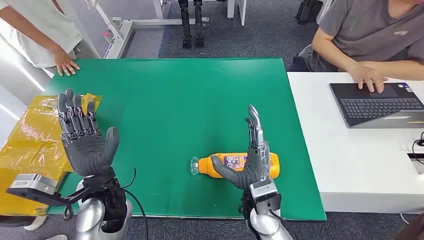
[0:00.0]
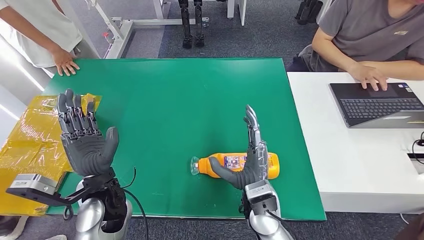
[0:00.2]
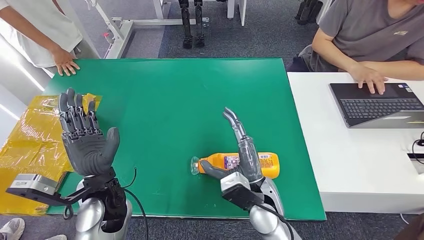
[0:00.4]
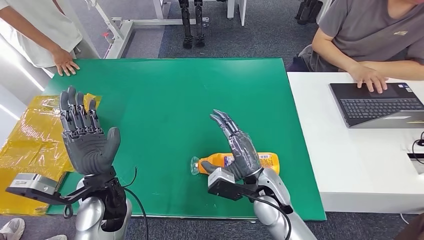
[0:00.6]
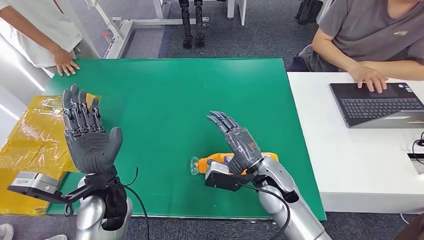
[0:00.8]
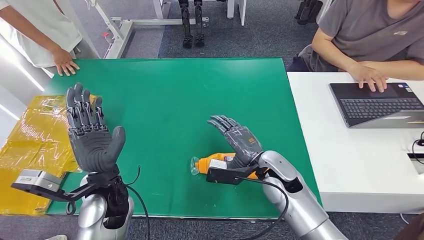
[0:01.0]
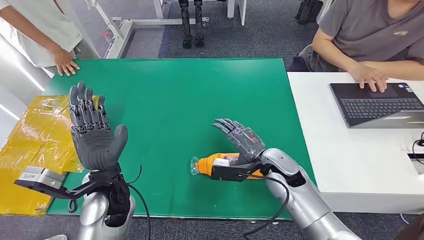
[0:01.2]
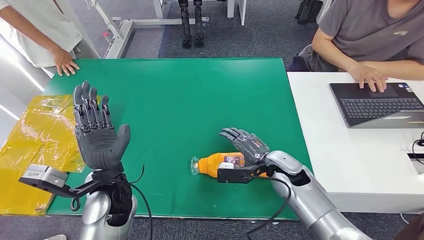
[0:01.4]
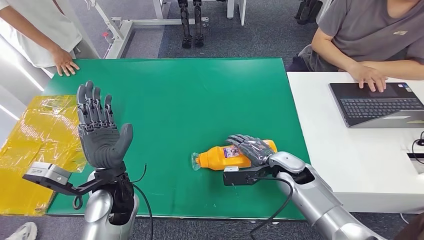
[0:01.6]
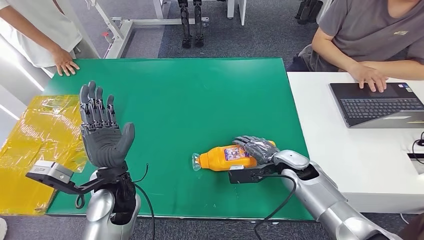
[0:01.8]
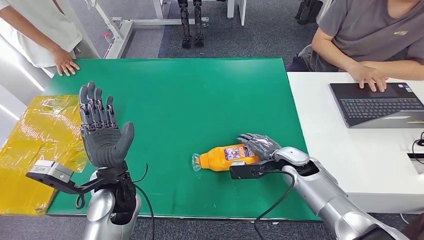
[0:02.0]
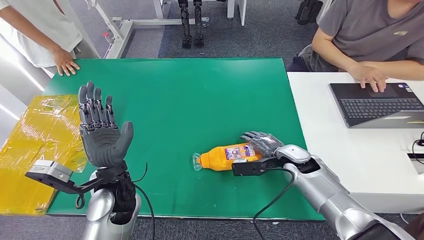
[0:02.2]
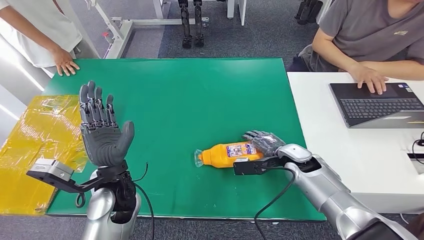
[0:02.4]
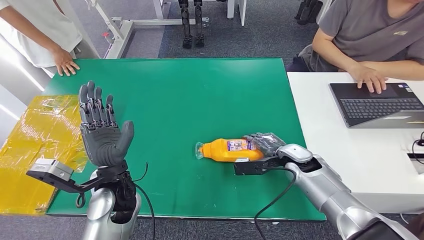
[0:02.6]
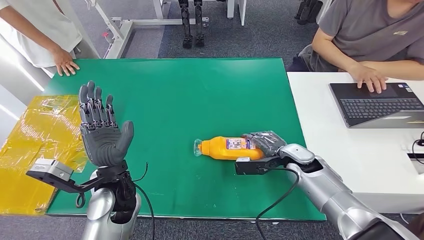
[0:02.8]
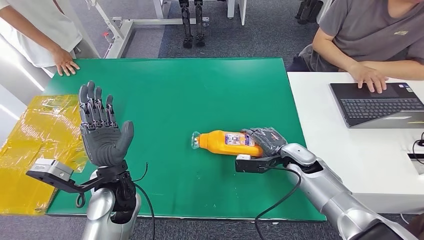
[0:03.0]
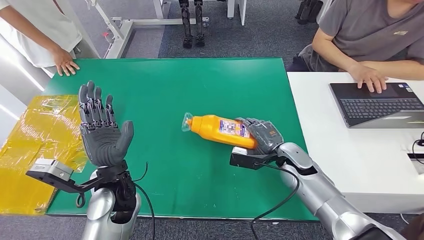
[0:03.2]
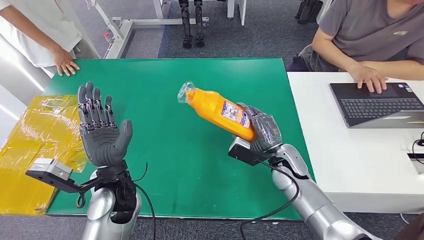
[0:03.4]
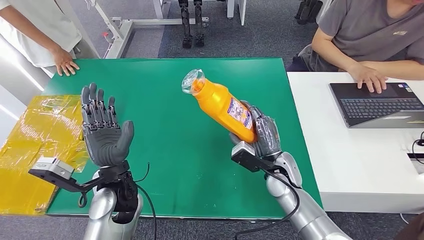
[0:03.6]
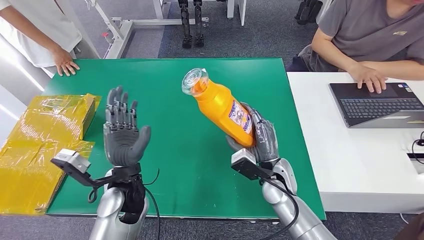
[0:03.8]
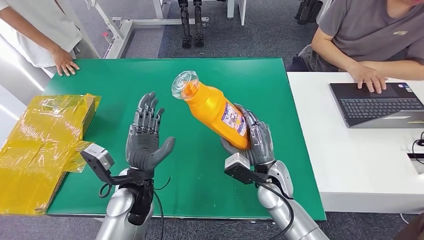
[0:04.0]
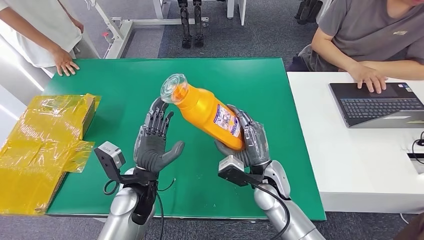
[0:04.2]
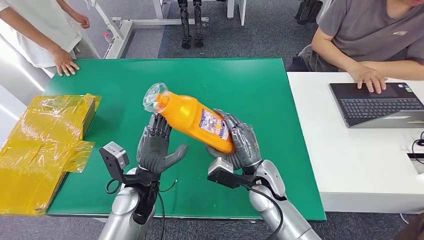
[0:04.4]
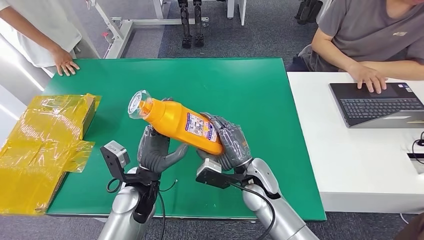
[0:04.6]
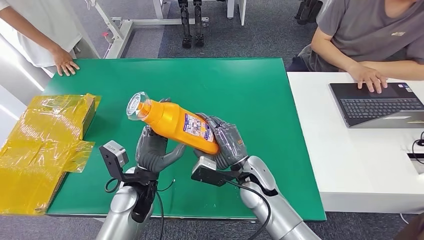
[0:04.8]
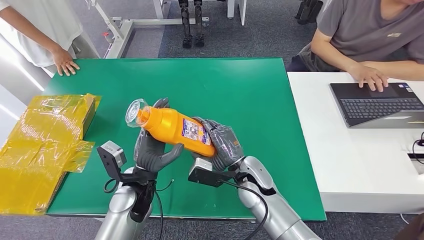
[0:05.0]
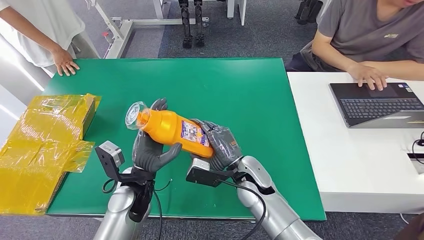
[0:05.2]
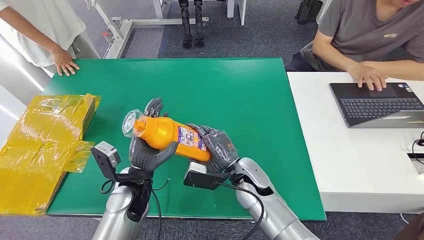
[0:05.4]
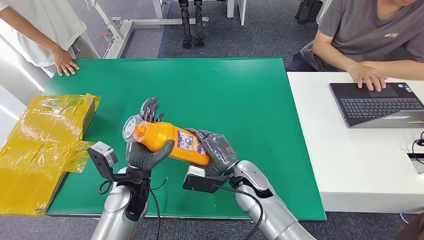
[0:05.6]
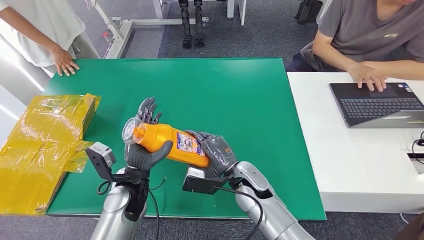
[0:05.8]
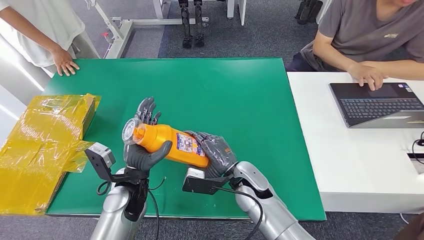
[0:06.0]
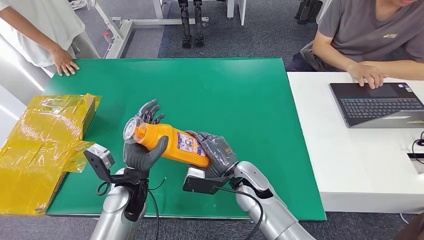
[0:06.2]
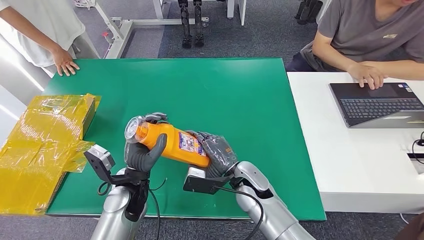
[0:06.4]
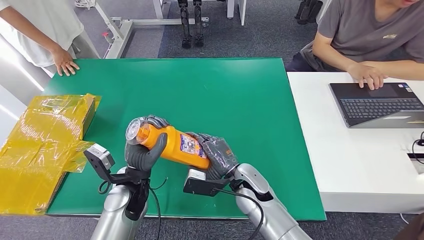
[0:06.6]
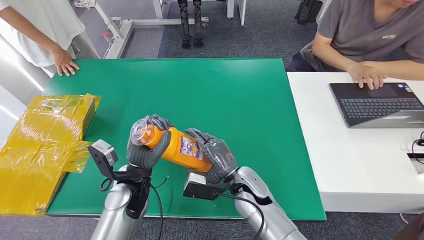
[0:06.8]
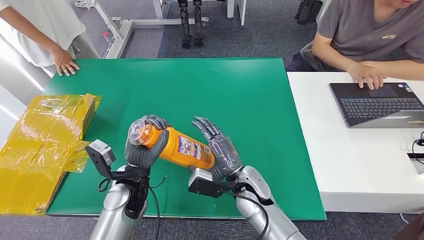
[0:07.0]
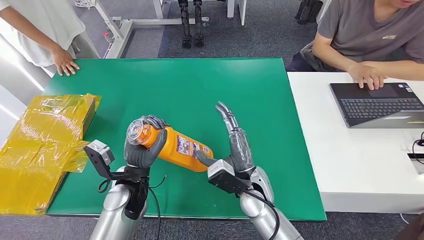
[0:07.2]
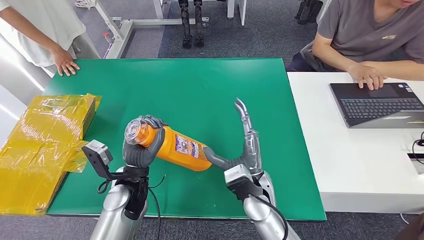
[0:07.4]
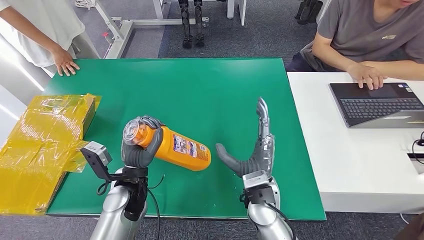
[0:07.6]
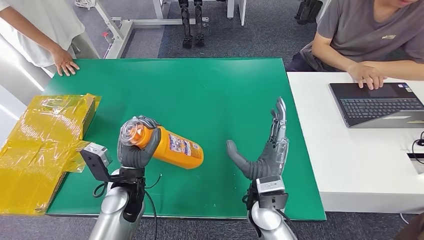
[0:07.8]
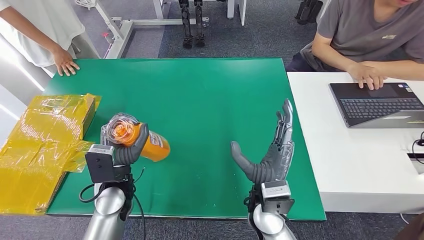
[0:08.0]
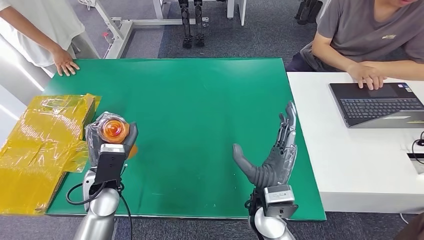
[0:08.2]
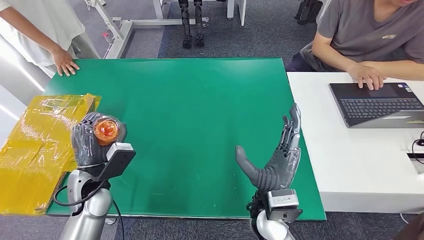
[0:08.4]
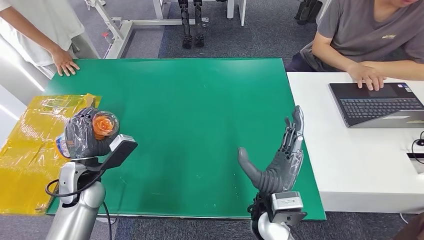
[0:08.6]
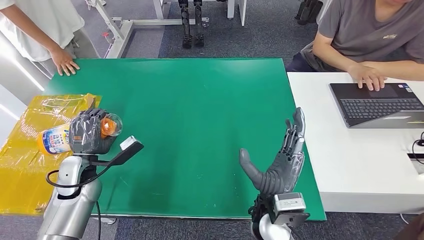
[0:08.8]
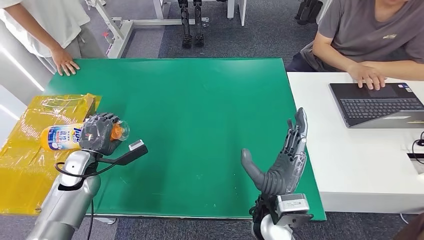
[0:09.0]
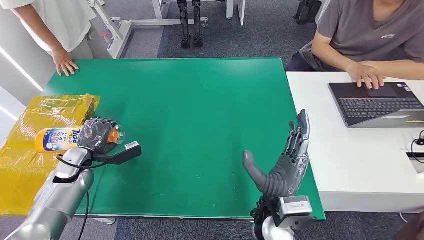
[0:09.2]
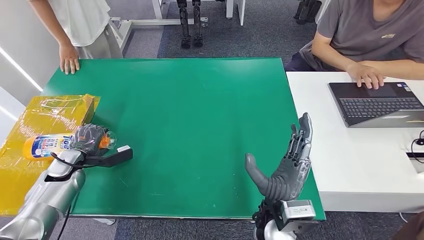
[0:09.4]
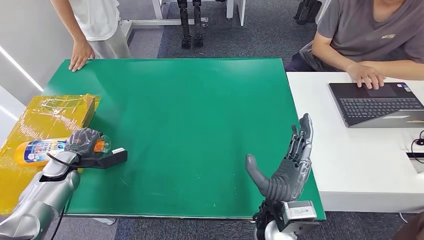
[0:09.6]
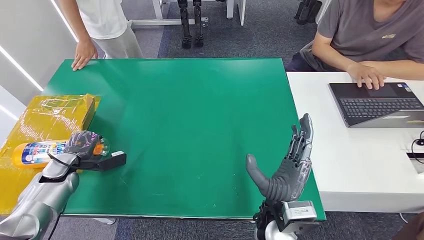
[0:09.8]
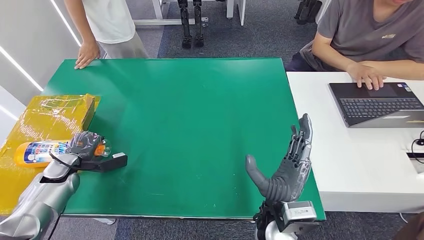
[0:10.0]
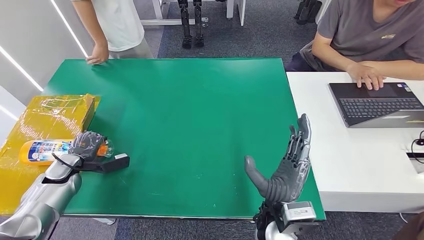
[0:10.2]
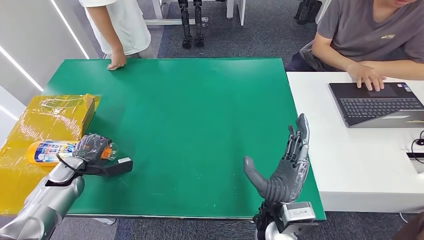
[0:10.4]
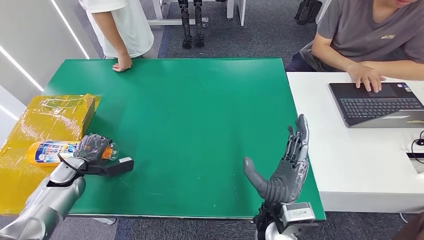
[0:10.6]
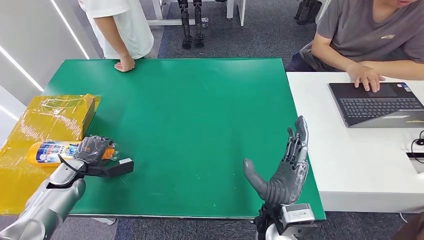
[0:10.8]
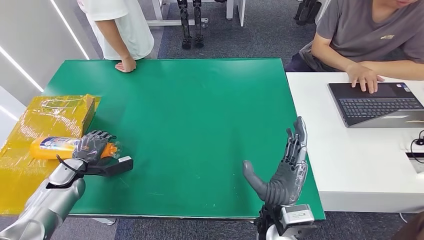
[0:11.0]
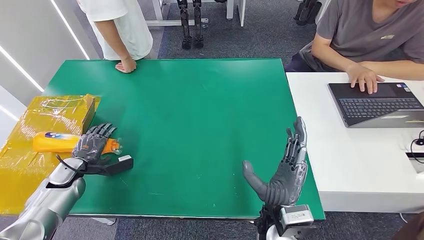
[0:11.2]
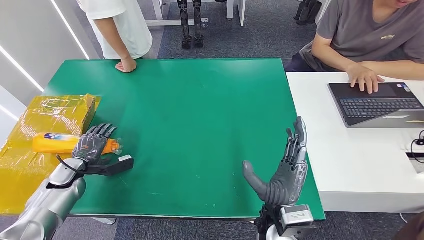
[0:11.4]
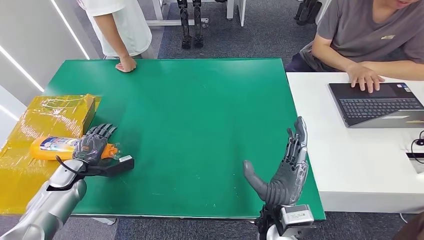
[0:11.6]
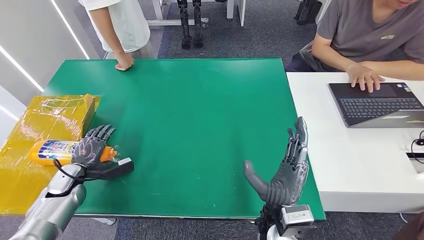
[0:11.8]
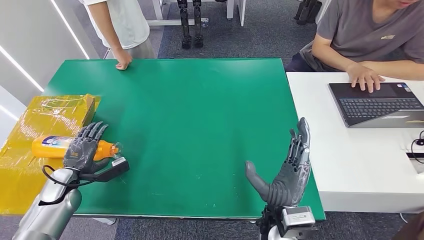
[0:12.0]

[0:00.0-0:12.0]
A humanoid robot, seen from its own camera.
Step, 0:00.0 to 0:05.4: Pick up the bottle from the table.
0:01.6 to 0:03.0: The hands make only small movements.
0:06.0 to 0:07.6: The right hand moves approximately 5 cm.
0:07.6 to 0:09.0: The left hand shifts about 15 cm to the left.
0:09.0 to 0:10.4: The left hand heads to the left and downward, covering approximately 10 cm.
0:10.4 to 0:12.0: The hands stay close to where they were, moving slightly.

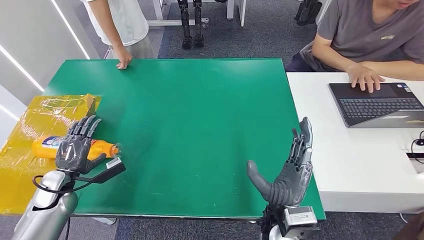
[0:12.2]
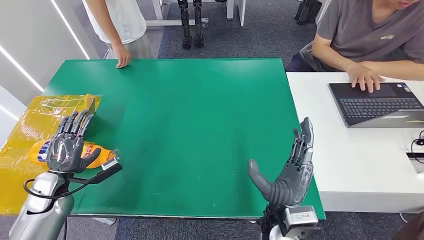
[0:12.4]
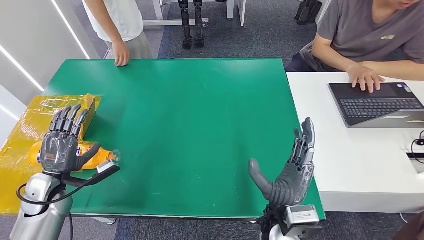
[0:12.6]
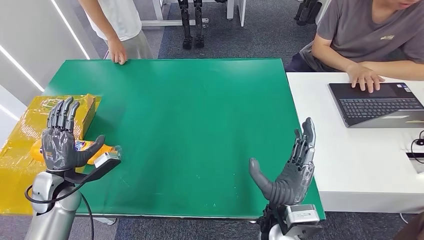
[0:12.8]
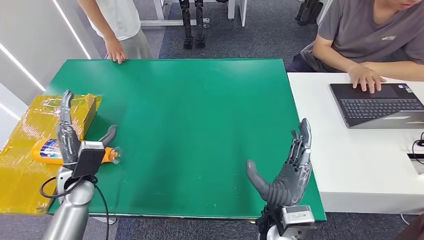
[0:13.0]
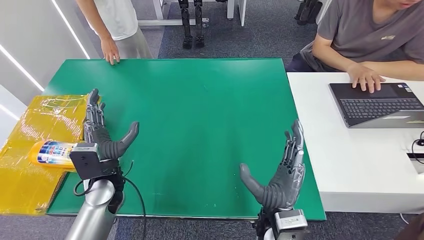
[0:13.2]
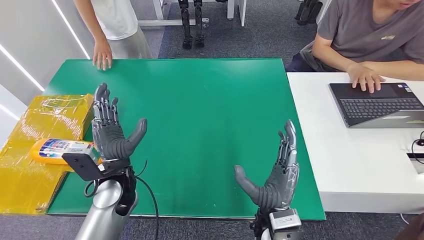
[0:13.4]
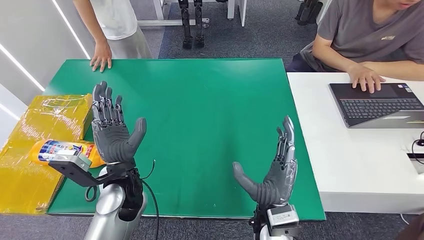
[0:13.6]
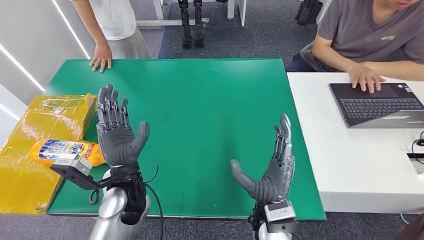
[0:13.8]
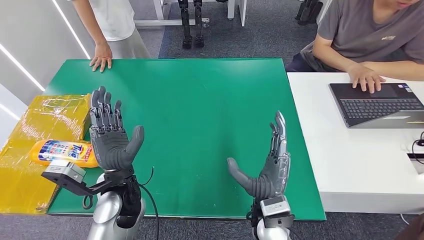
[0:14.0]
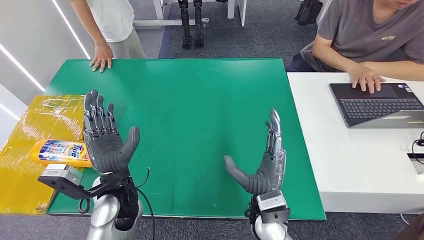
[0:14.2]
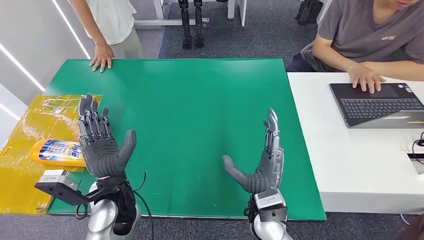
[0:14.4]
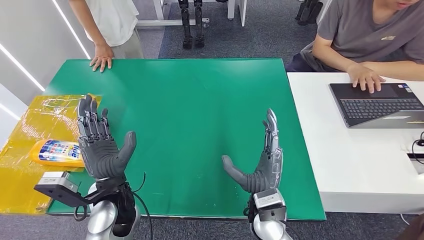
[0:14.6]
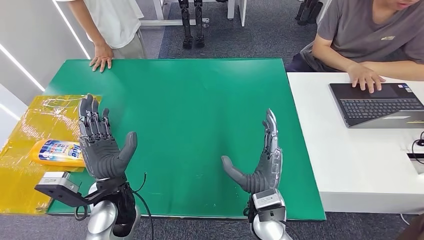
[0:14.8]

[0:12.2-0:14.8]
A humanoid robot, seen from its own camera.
Step, 0:12.2 to 0:14.8: Turn the bottle to the front side.
0:12.2 to 0:13.4: The left hand travels to the right and upward by about 25 cm.
0:13.4 to 0:14.8: There are only small adjustments of the hands.
